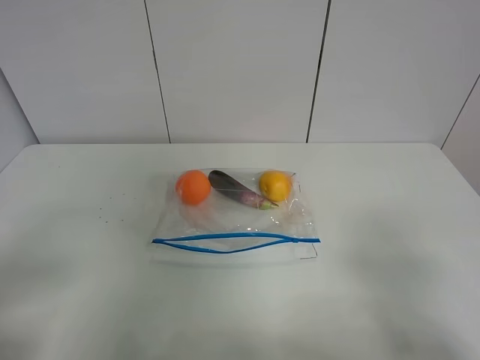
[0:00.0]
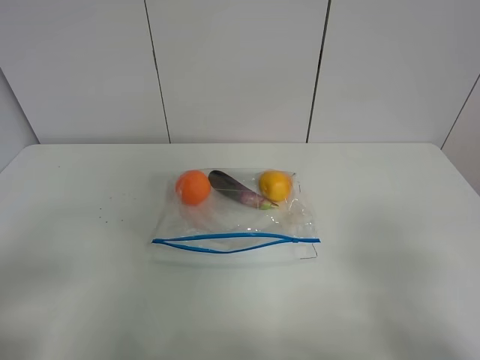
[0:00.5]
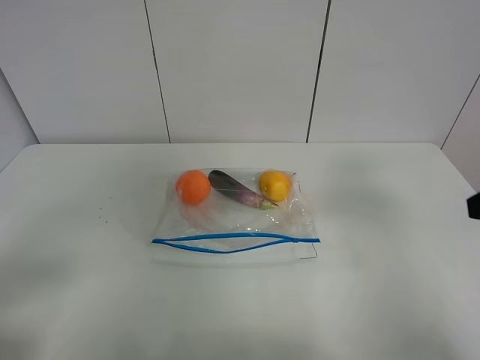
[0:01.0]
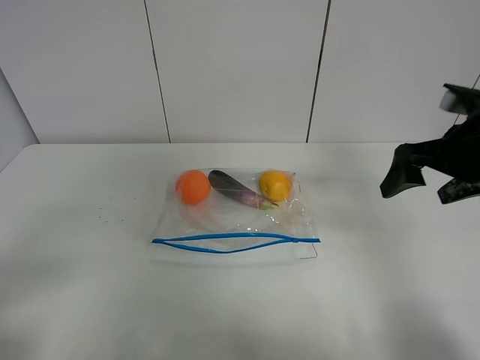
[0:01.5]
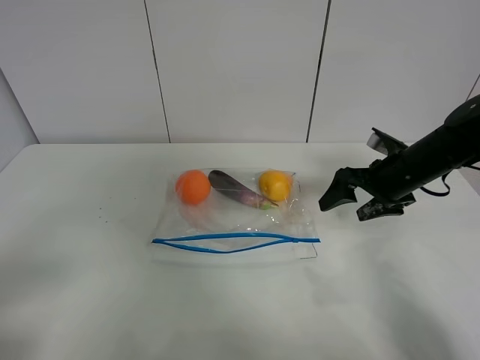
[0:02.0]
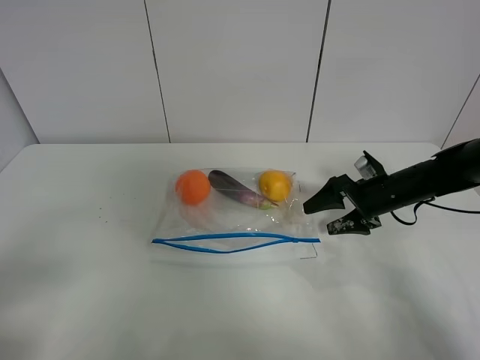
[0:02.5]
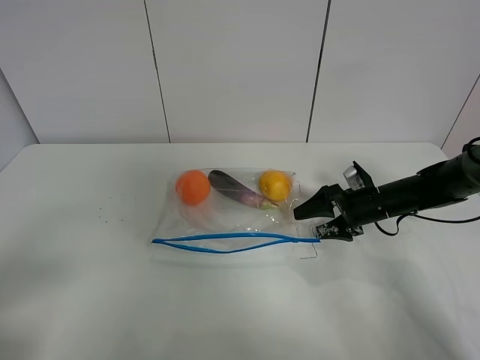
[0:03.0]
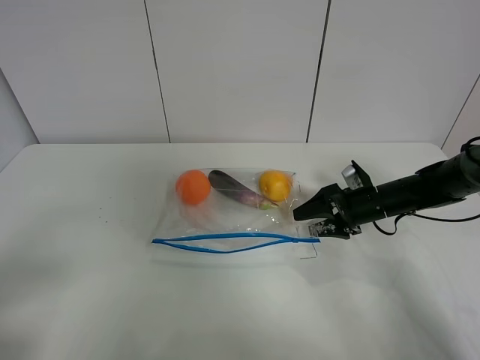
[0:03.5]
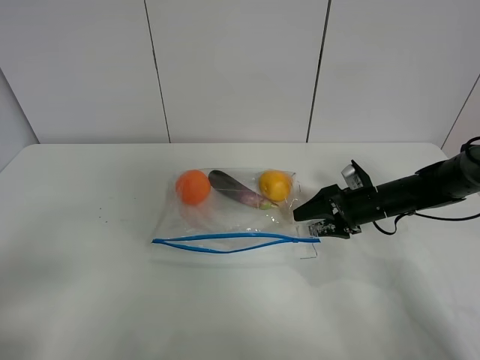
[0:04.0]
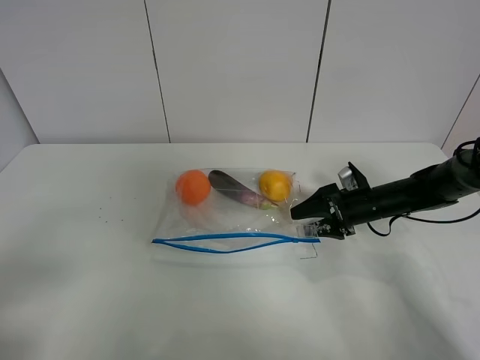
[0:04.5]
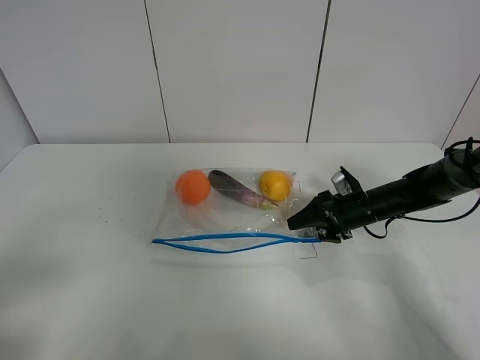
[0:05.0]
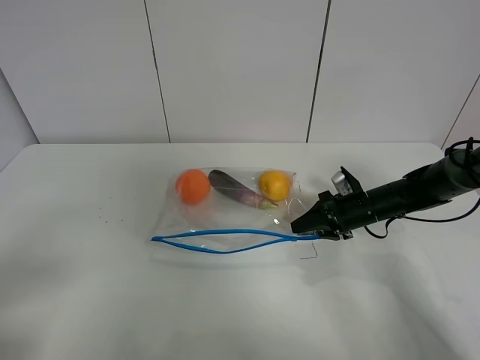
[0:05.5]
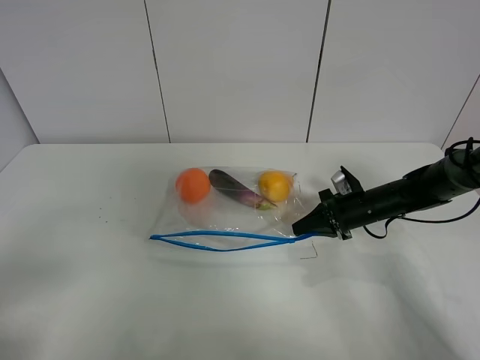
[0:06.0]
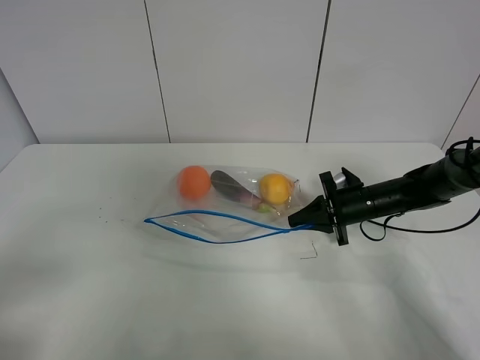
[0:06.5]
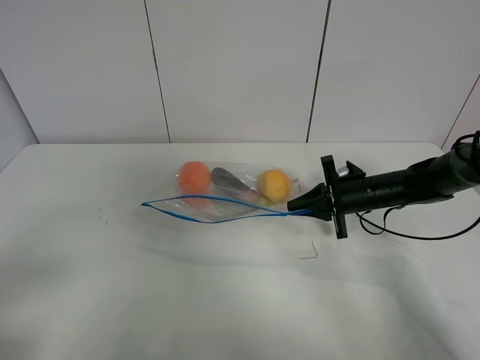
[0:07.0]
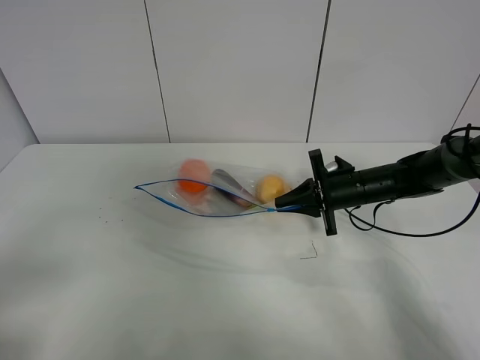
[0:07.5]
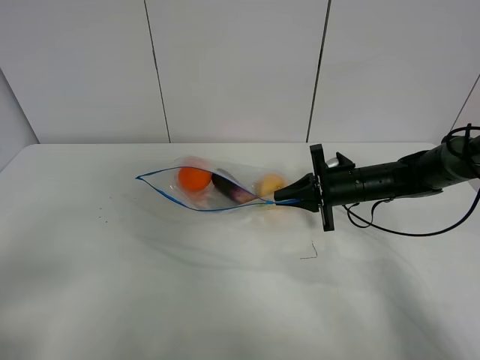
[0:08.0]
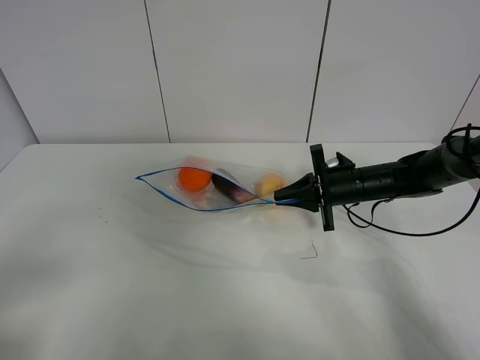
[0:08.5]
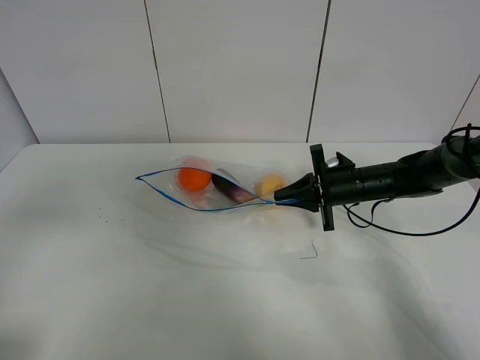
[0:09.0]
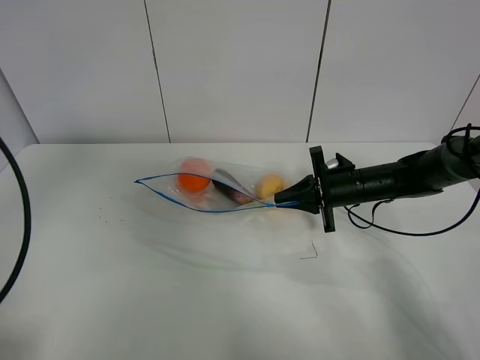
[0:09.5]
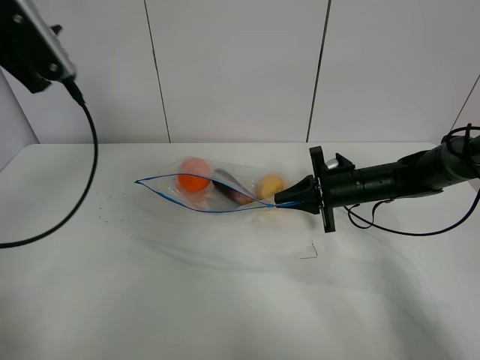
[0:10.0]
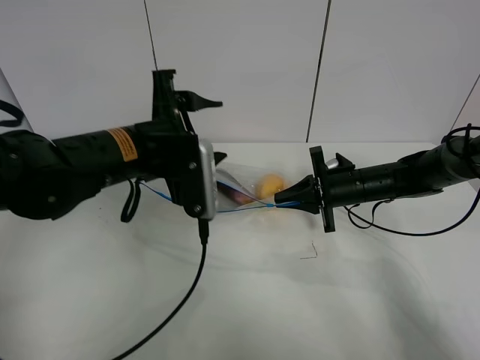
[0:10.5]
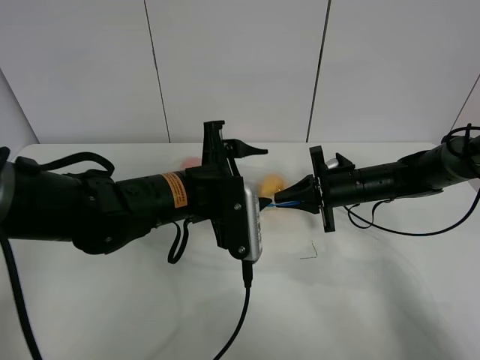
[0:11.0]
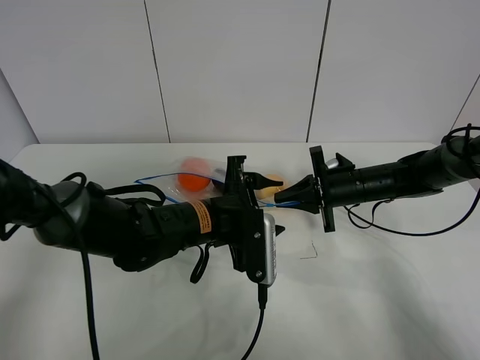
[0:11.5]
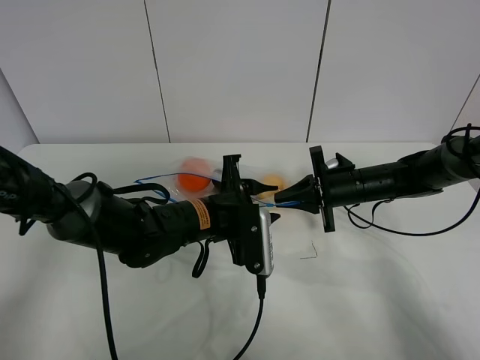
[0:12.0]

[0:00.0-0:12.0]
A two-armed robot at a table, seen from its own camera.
Step, 0:00.0 to 0:05.5: Grasp the fruit bag with right gripper.
Step, 0:06.0 to 0:08.0: Lift the fruit bag with your right gripper.
0:00.0 to 0:02.0: The right gripper is displaced forward by some 35 cm.
0:02.0 to 0:04.0: The right gripper is displaced downward by about 10 cm.
0:04.0 to 0:06.0: The right gripper closes.
0:06.0 to 0:08.0: The right gripper ends up about 5 cm from where it was.
0:08.0 to 0:10.0: The left gripper shifts roughly 30 cm forward.
0:10.0 to 0:12.0: The left gripper heads to the right and downward, covering about 30 cm.

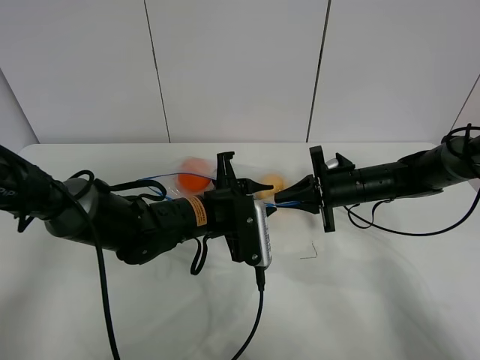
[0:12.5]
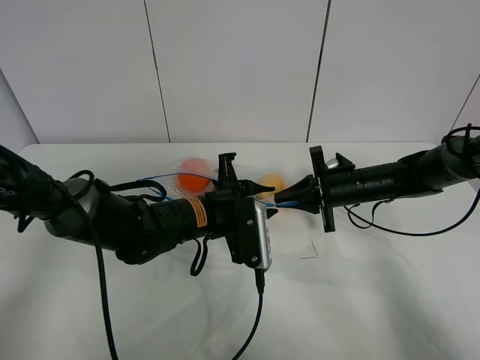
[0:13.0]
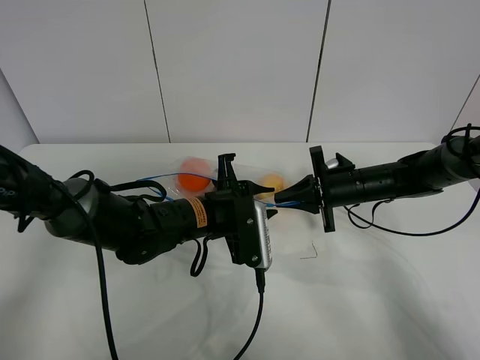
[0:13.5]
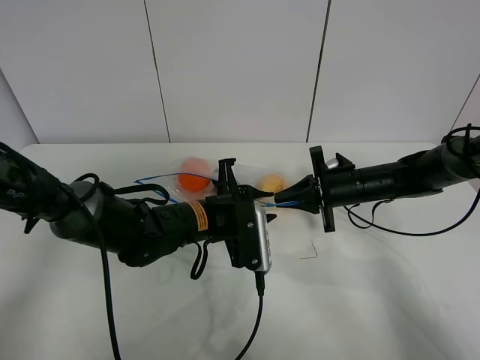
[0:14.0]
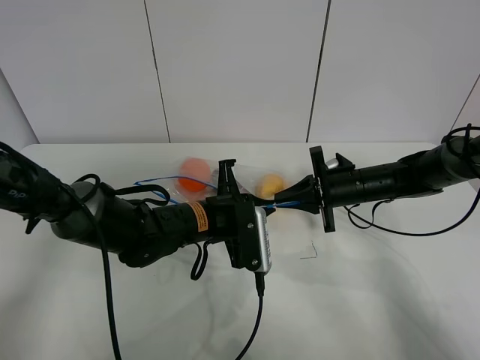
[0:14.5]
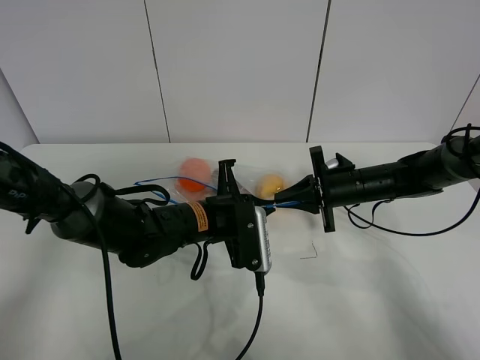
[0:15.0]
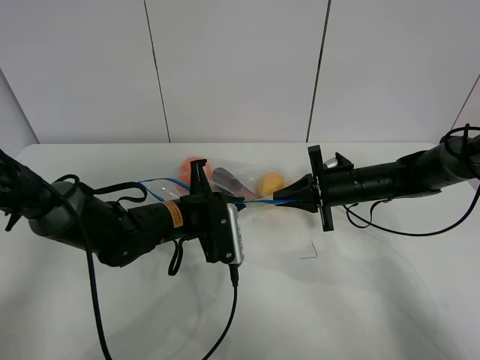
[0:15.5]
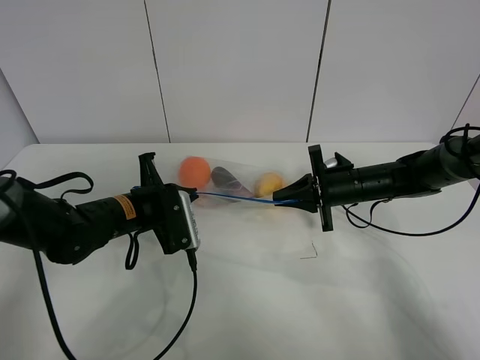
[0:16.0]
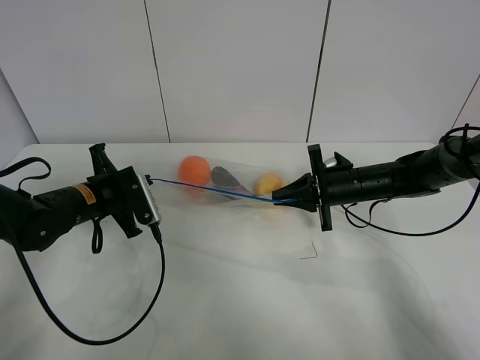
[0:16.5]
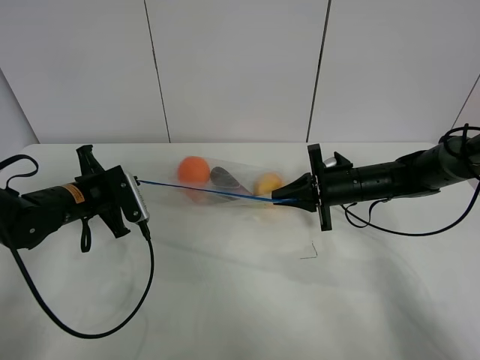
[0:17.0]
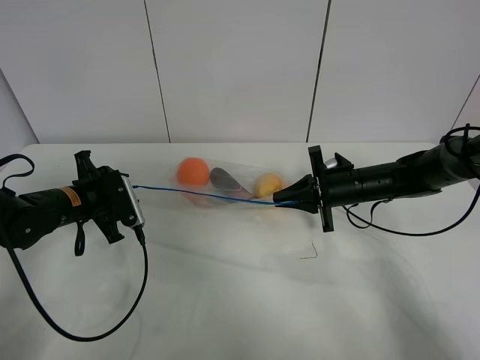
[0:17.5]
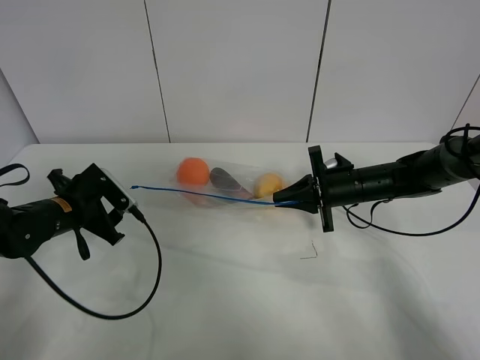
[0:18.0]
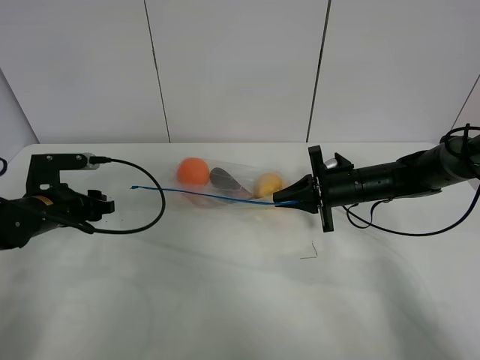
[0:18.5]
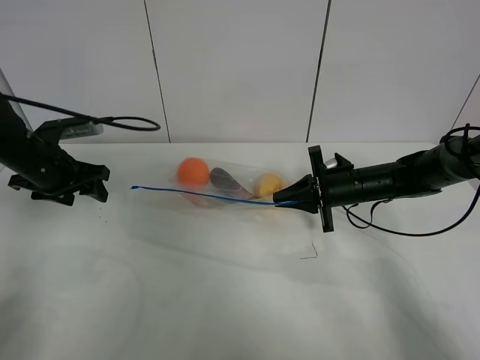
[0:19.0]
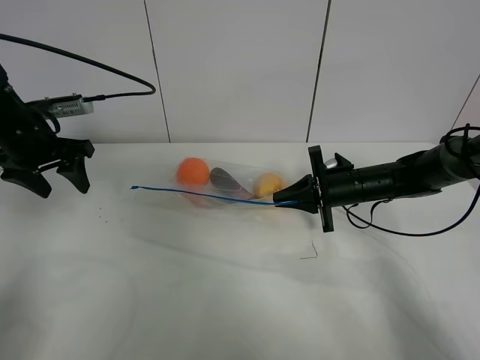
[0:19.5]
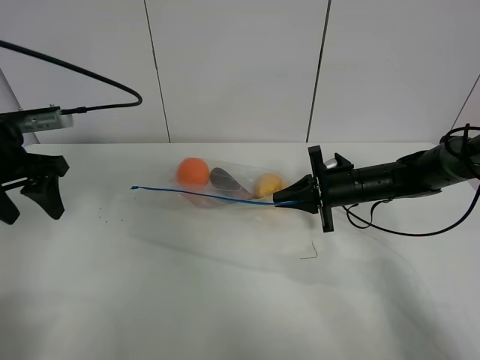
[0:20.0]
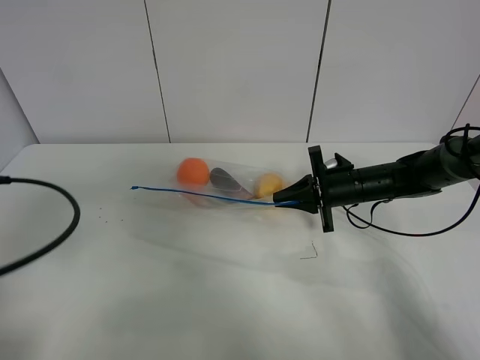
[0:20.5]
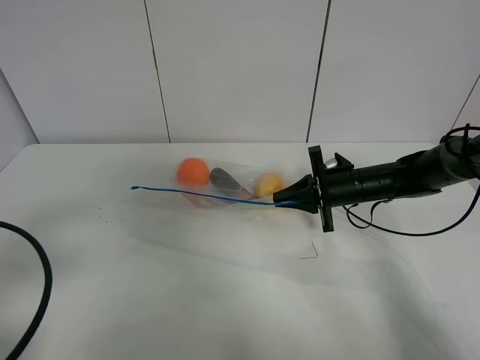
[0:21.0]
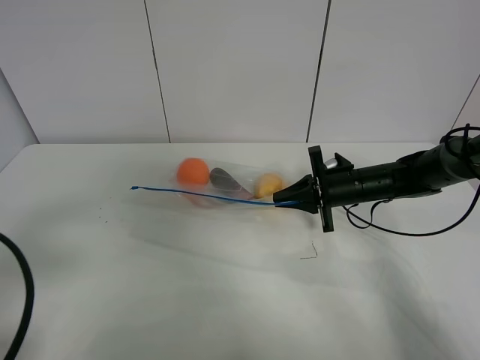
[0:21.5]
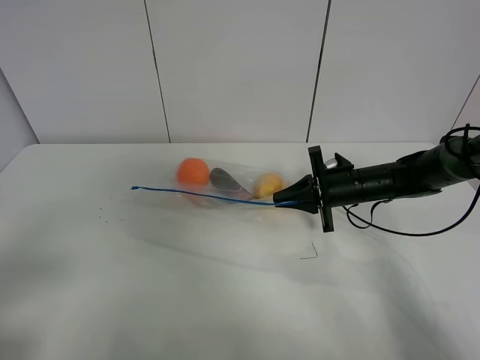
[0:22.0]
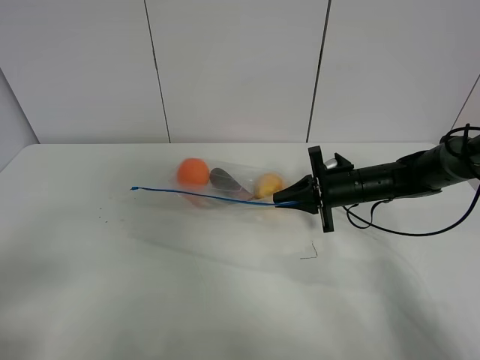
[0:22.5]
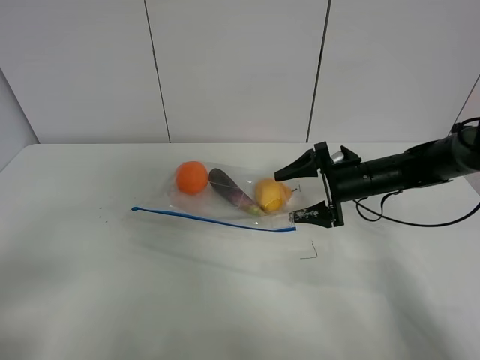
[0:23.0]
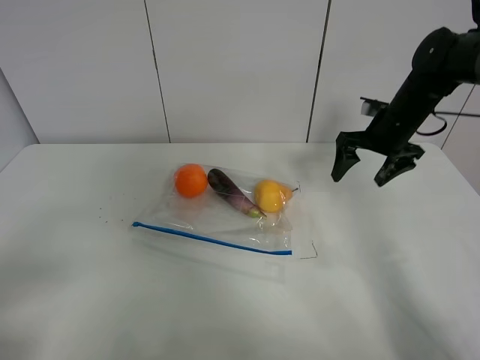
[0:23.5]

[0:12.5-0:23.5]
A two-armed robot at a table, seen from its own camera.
Step, 0:12.5 to 0:17.5: Pull the fruit bag with left gripper.
0:12.5 to 0:14.5: The left gripper closes.
0:14.5 to 0:16.0: The left gripper heads to the left, covering roughly 10 cm.
0:16.0 to 0:18.0: The left gripper travels to the left by roughly 10 cm, and opens its fingers.
0:18.0 to 0:20.0: The left gripper is displaced upward by some 15 cm.
0:20.0 to 0:21.5: The left gripper is displaced backward by about 20 cm.
0:21.5 to 0:23.5: The right gripper moves upward, to the right and forward, some 15 cm, and opens up. The left gripper moves backward, some 5 cm.

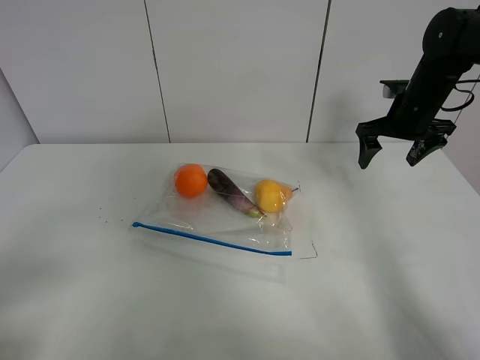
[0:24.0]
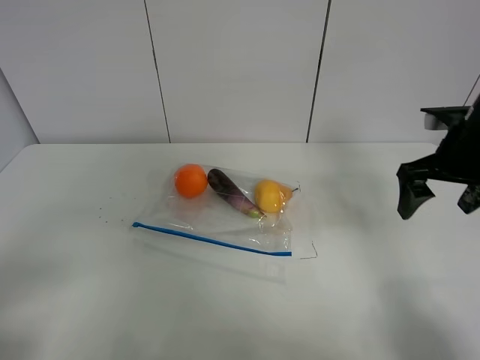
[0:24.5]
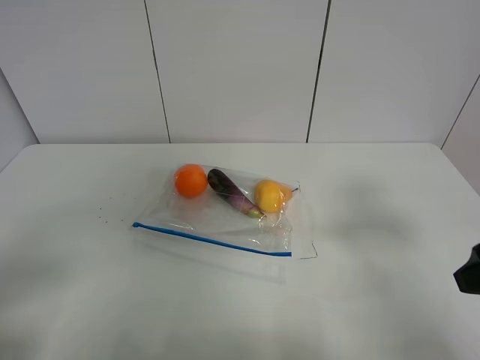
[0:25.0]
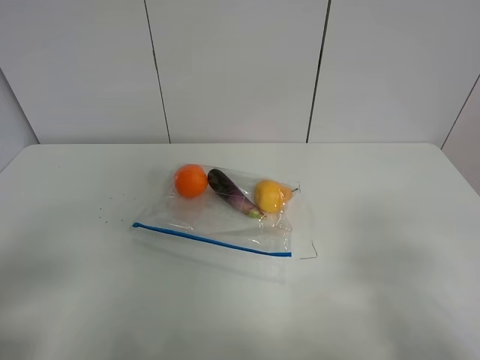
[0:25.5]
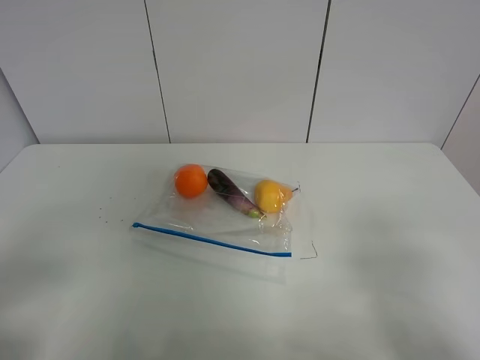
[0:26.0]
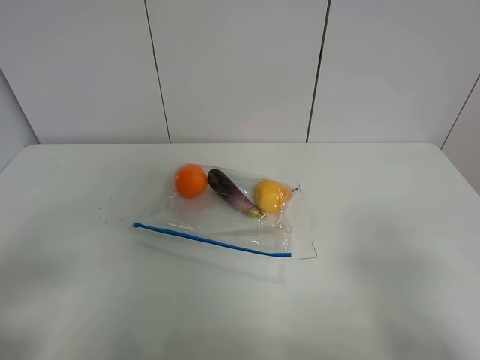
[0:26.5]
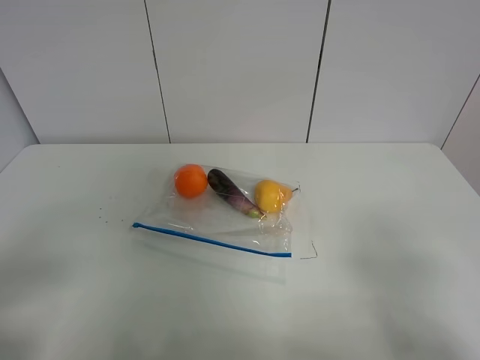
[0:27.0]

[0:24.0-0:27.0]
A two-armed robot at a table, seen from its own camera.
0:24.0 to 0:25.5: The right gripper travels backward by approximately 40 cm.
